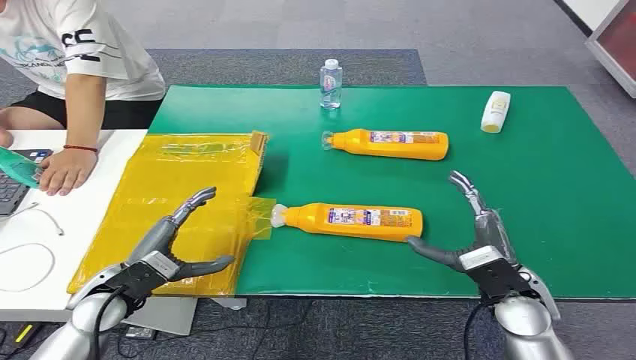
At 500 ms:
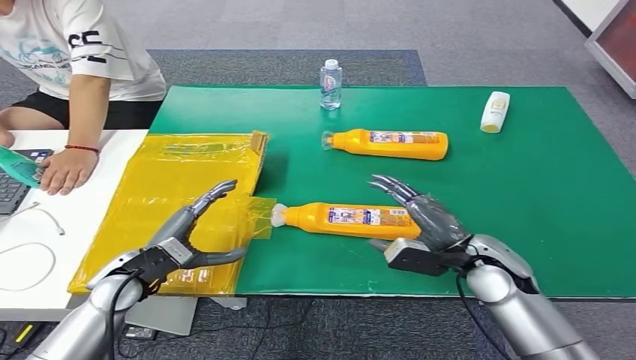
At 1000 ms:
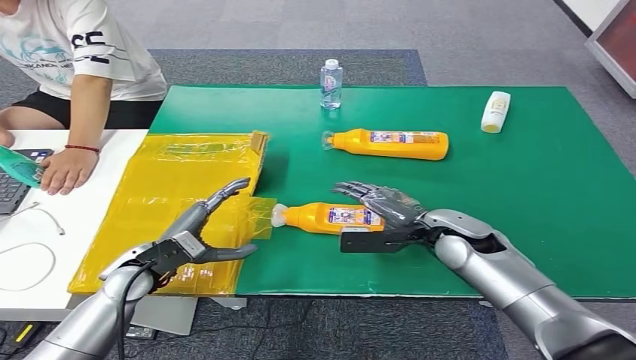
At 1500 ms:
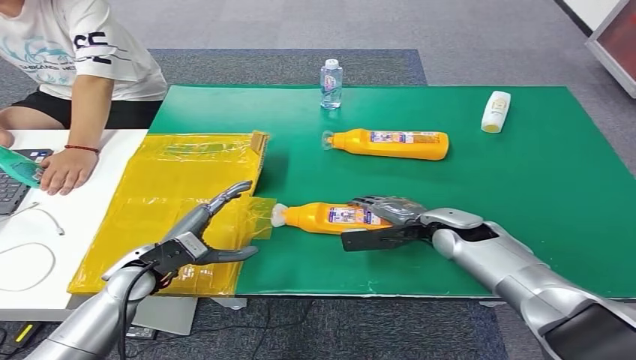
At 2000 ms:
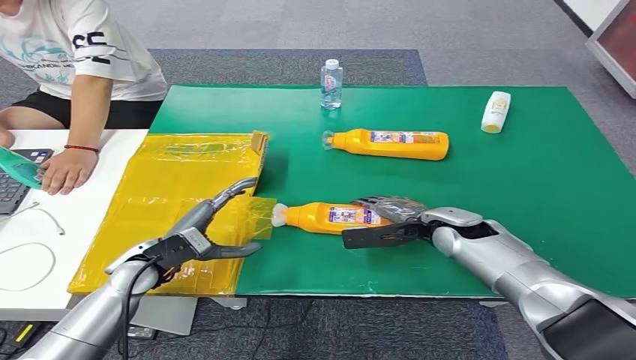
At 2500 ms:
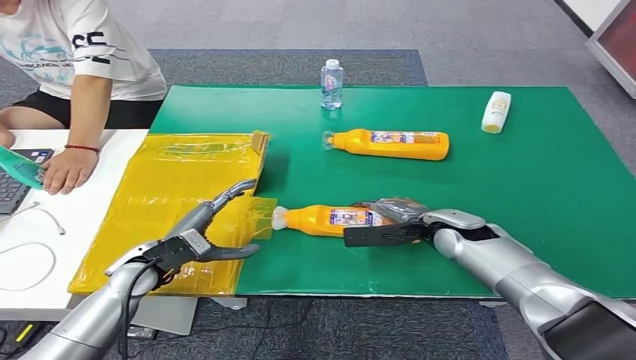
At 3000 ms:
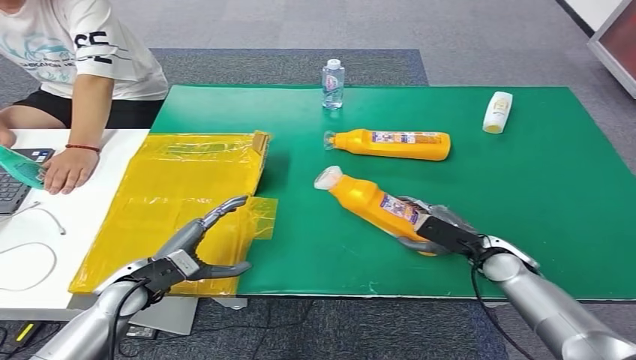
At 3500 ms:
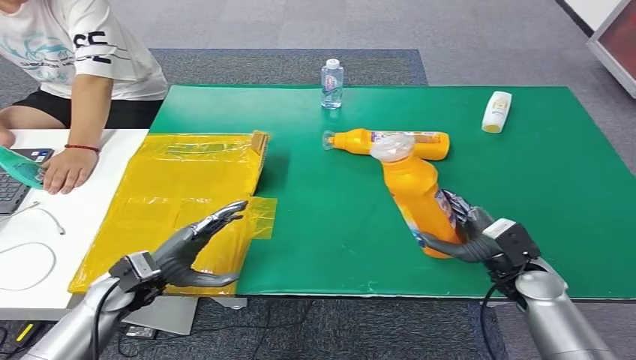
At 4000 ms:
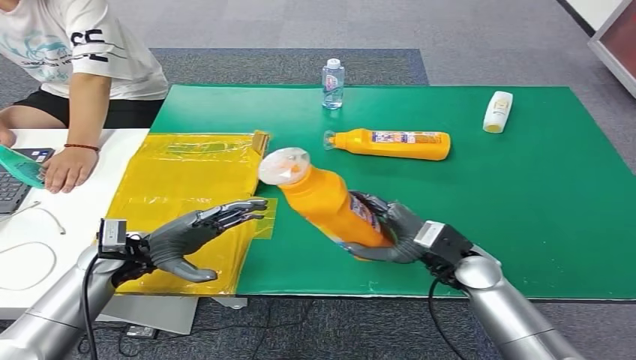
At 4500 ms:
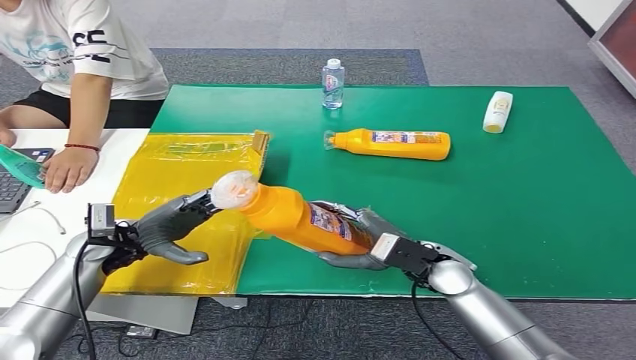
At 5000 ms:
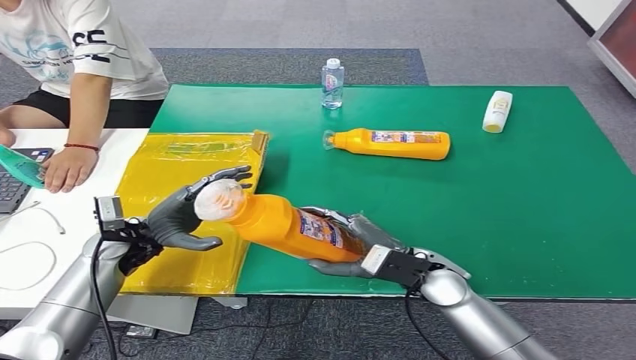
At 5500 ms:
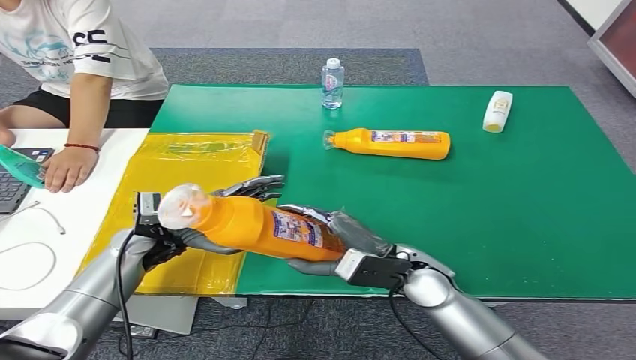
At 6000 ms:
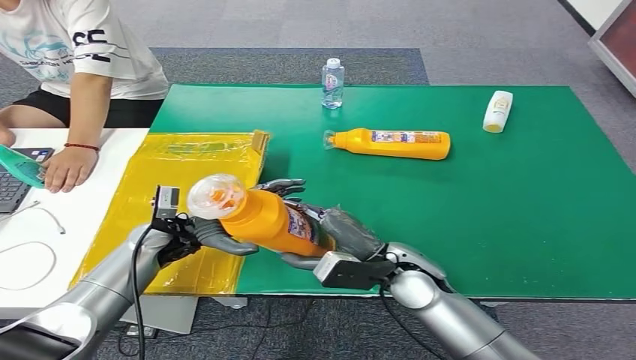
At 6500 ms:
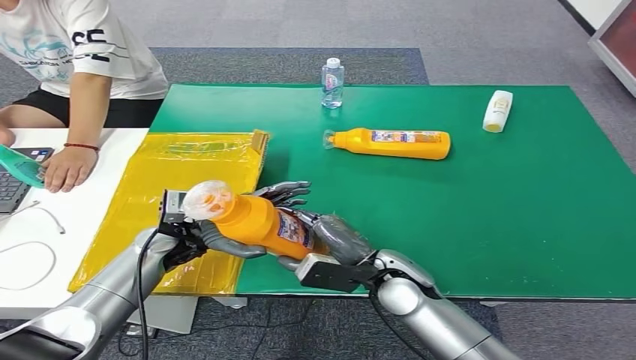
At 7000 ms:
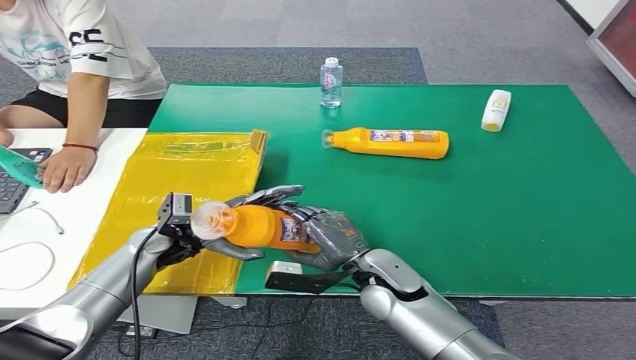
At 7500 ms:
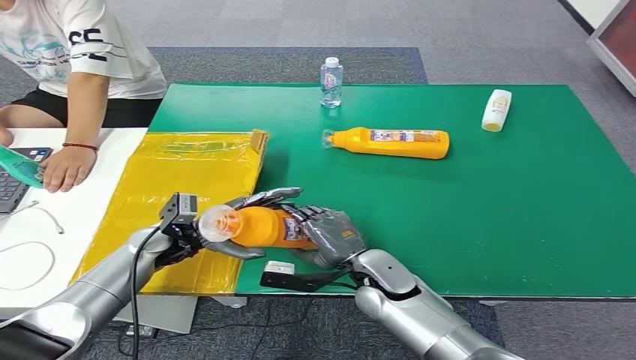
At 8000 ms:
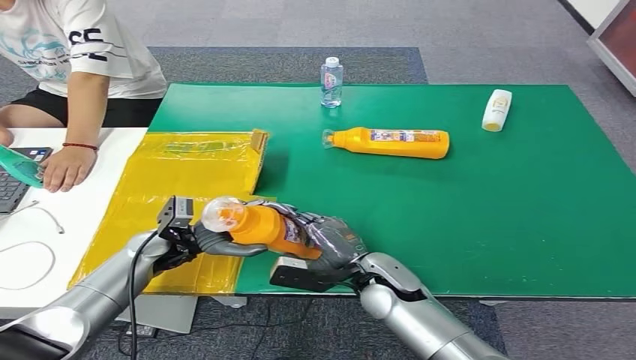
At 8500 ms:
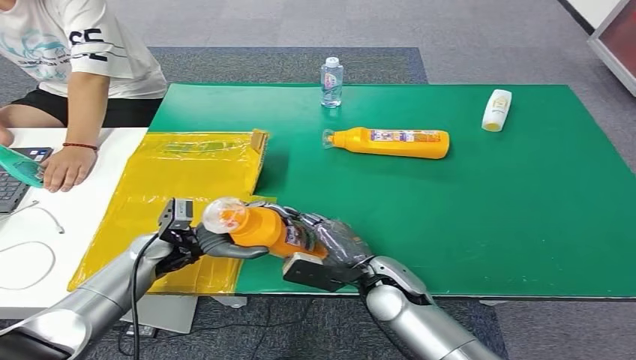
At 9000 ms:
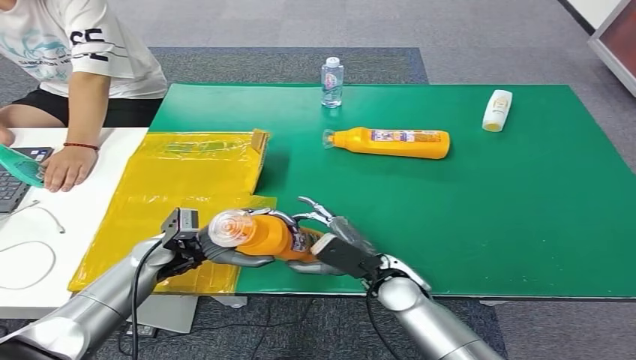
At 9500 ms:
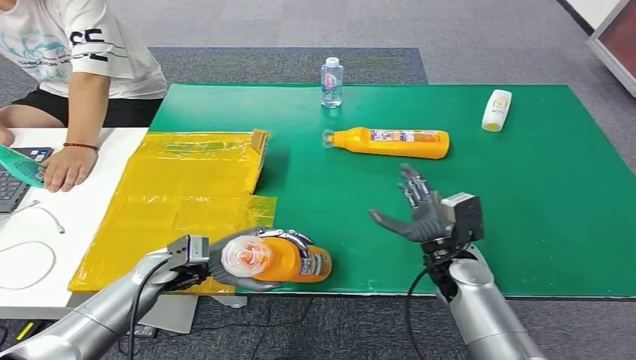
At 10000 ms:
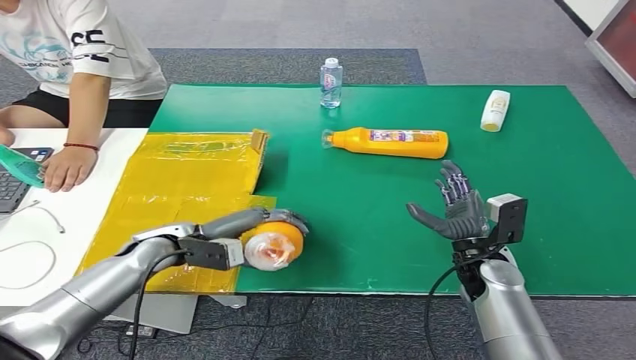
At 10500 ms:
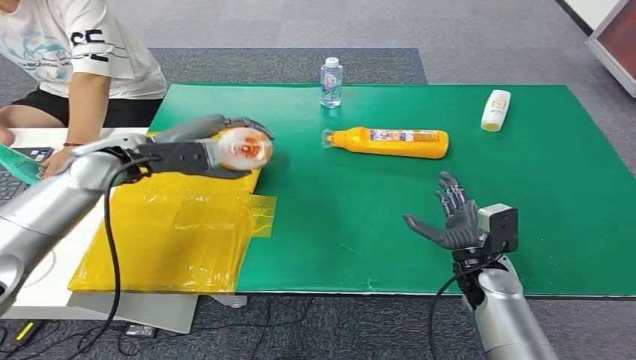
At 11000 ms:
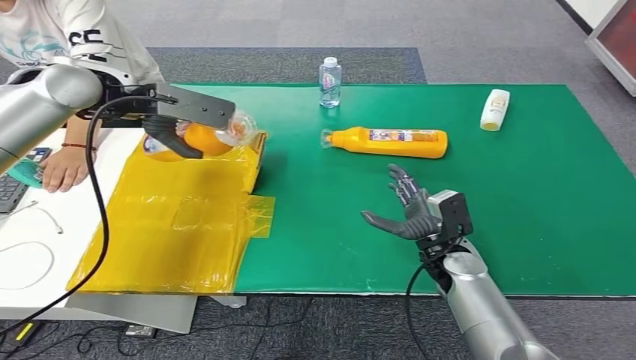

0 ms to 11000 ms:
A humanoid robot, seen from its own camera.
Step, 0 ms to 4500 ms: Pick up the bottle from the table.
2000 ms to 3500 ms: The right hand heads to the right and backward, covering some 15 cm.
3500 ms to 5500 ms: The left hand heads forward, covering roughly 10 cm. The right hand heads to the left, covering some 15 cm.
5500 ms to 7500 ms: The right hand shifts by roughly 5 cm.

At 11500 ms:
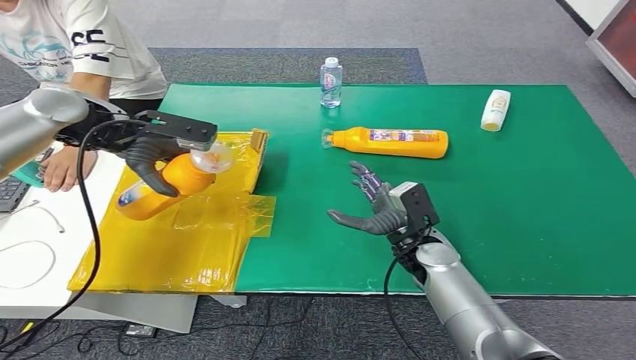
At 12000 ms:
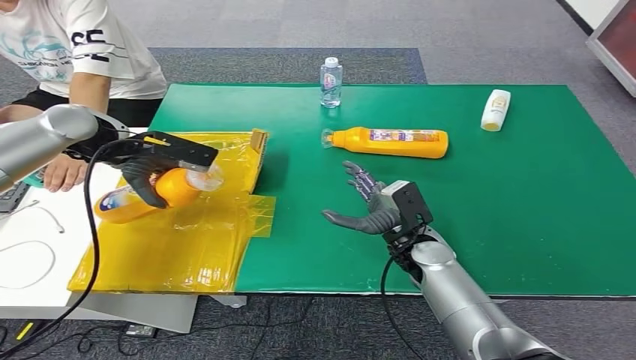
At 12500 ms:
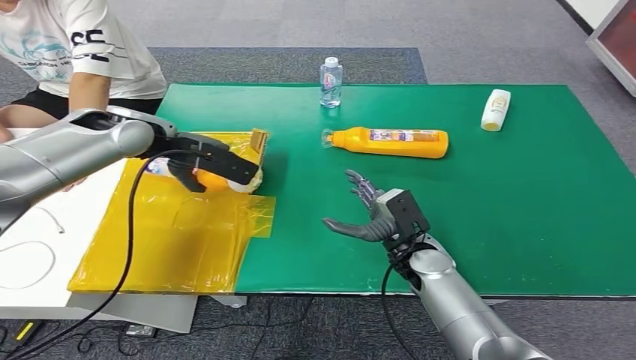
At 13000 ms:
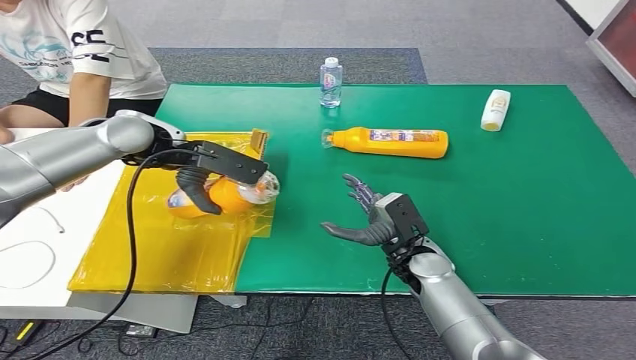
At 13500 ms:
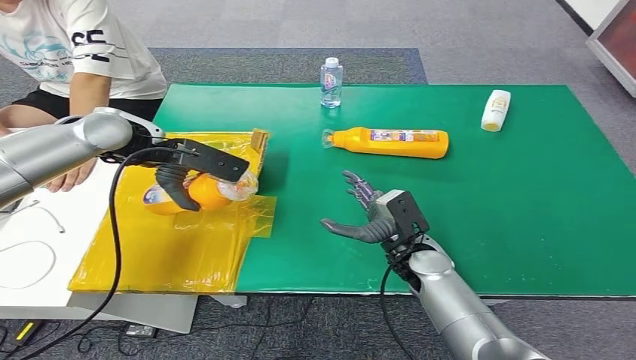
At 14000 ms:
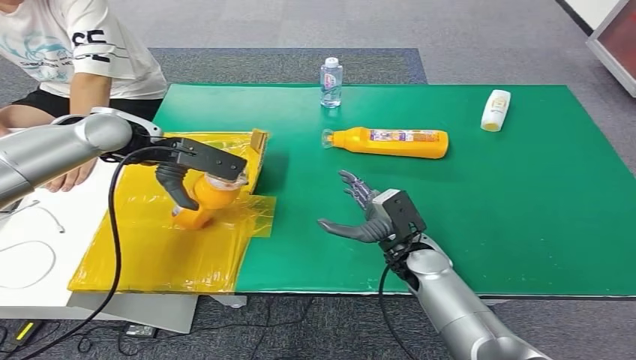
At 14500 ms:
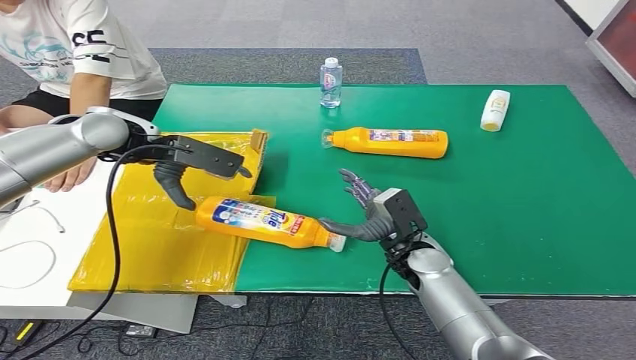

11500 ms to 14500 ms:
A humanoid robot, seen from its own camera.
Step, 11500 ms to 14500 ms: Turn the bottle to the front side.
11500 ms to 13000 ms: The left hand shifts about 5 cm to the right.
13000 ms to 14500 ms: There are only small adjustments of the hands.

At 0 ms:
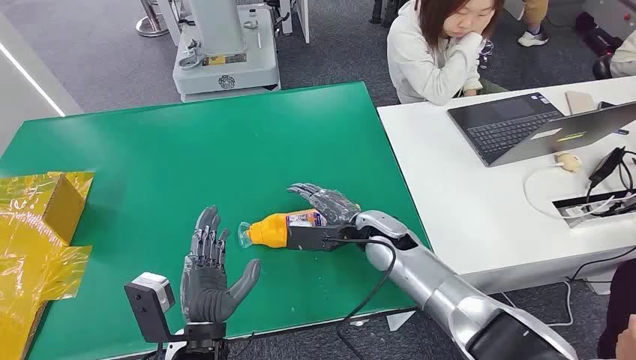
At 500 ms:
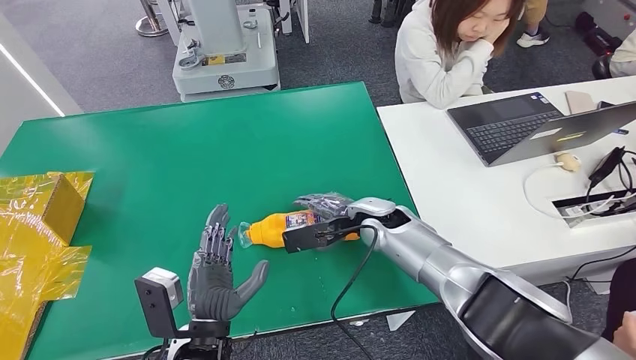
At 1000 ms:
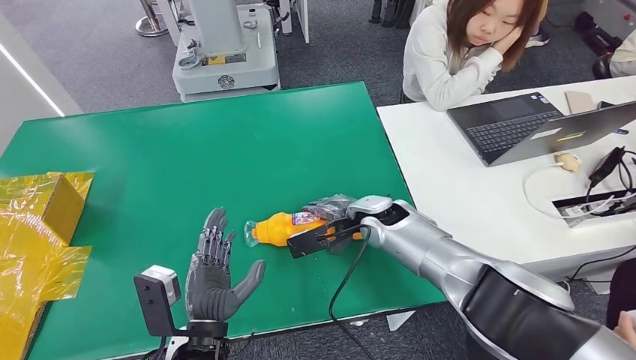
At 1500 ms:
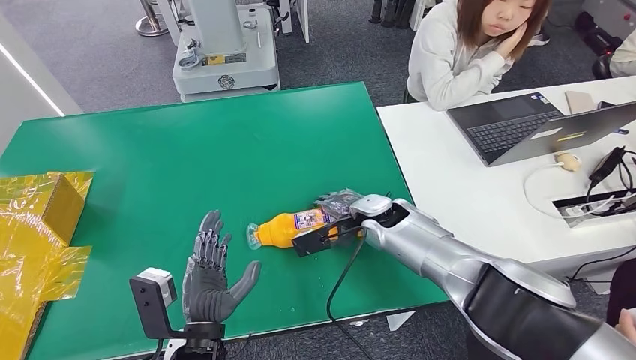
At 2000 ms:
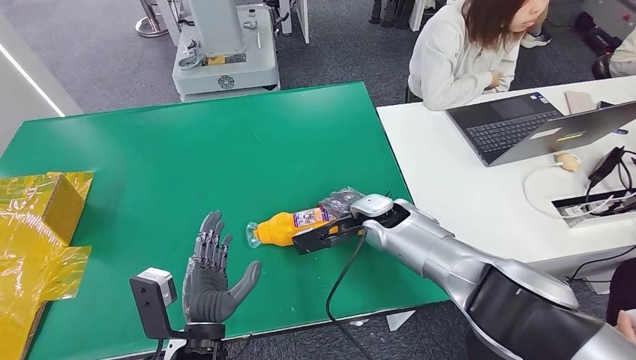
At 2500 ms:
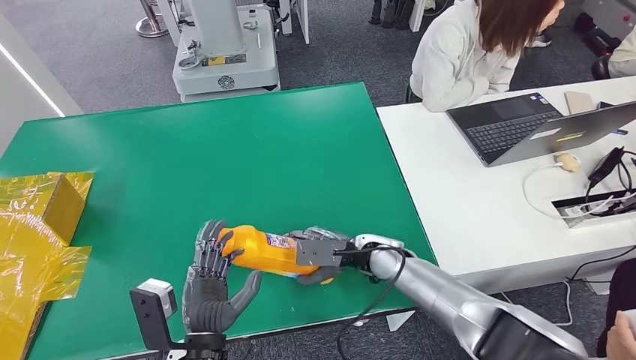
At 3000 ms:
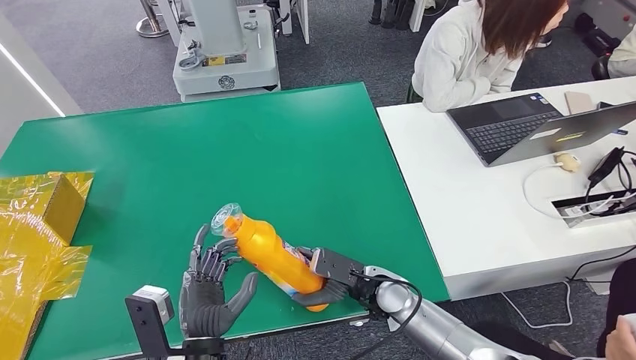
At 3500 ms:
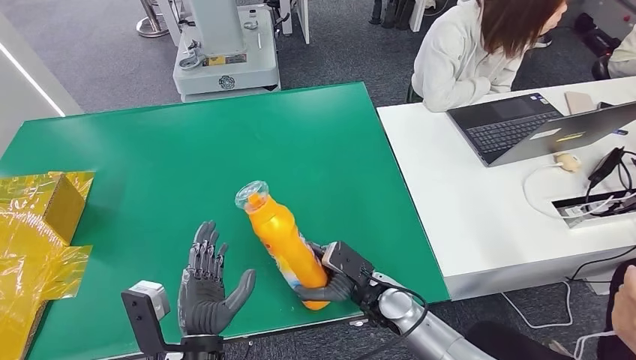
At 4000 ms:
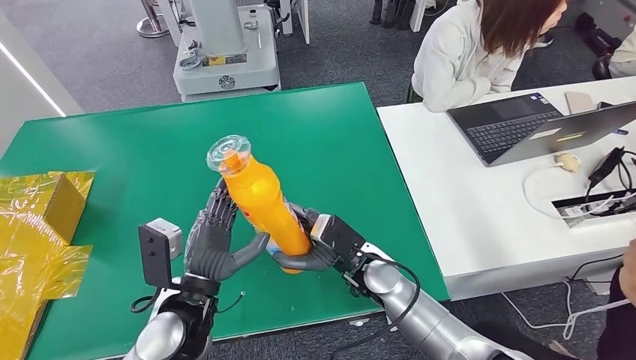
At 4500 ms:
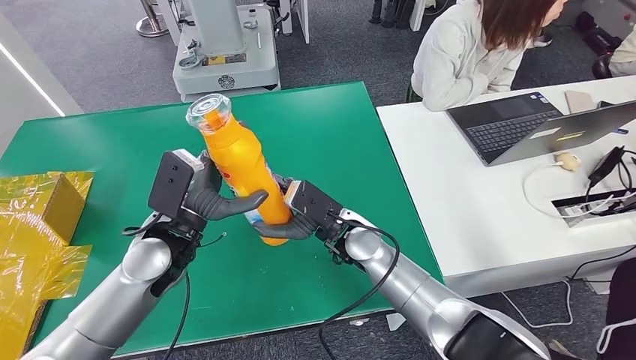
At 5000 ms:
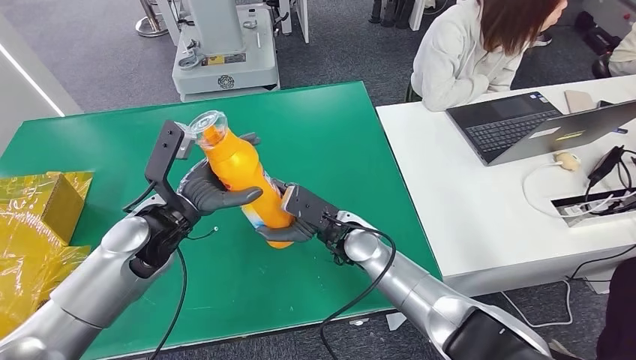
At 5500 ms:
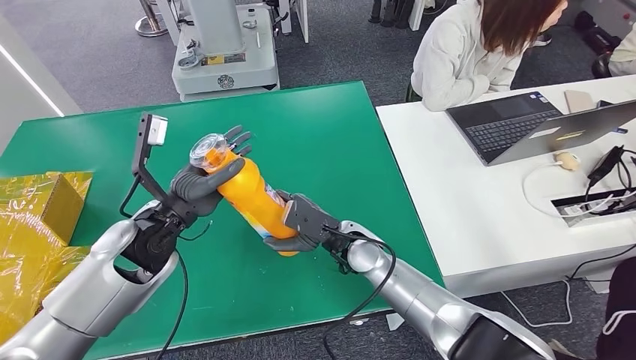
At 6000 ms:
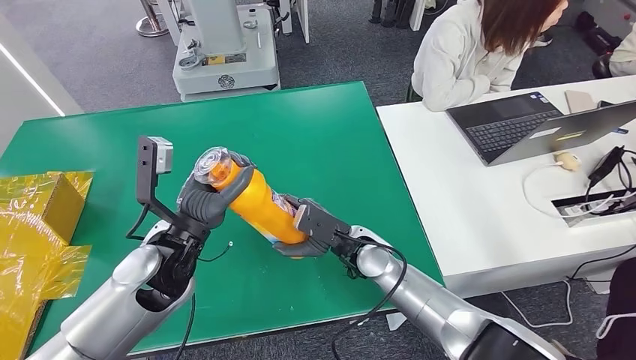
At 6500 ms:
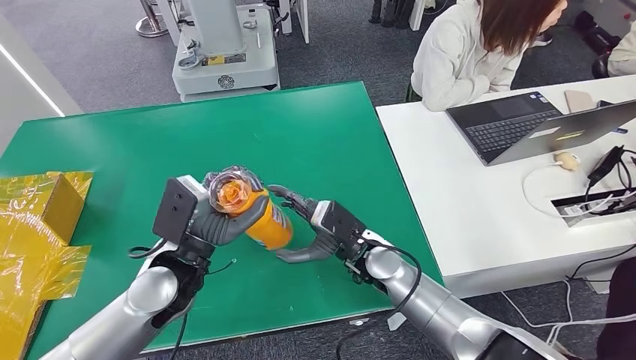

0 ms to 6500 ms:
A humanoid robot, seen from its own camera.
Step, 0 ms to 4000 ms: Pick up the bottle from the table.
4500 ms to 6500 ms: The right hand changes place by approximately 5 cm.
